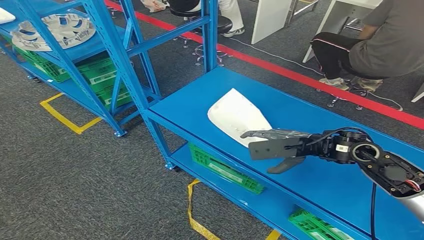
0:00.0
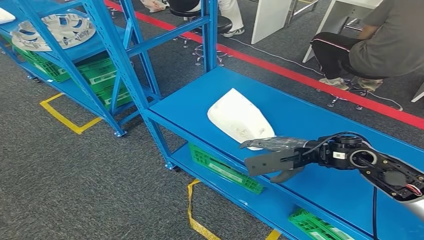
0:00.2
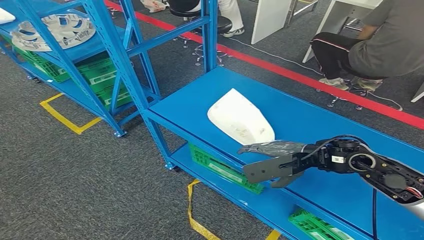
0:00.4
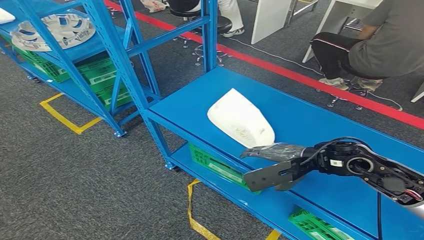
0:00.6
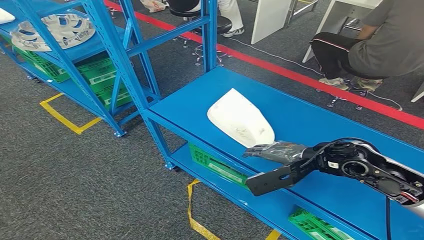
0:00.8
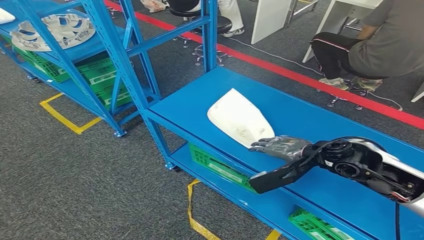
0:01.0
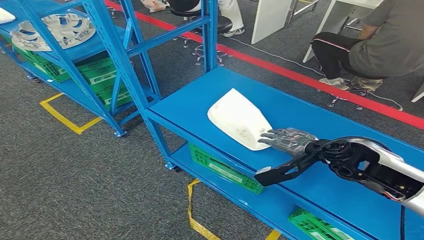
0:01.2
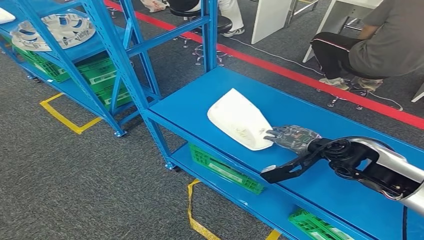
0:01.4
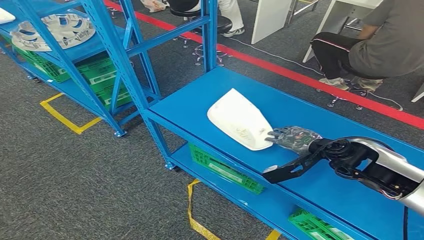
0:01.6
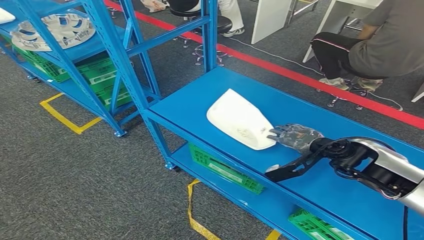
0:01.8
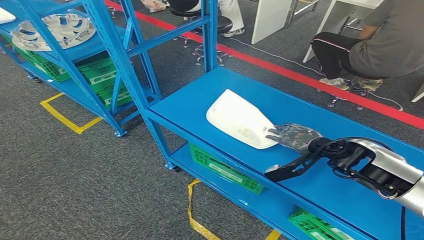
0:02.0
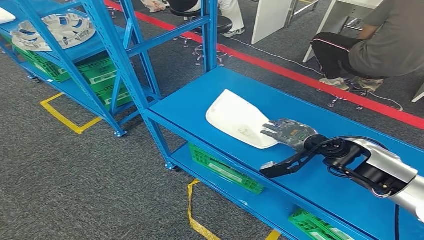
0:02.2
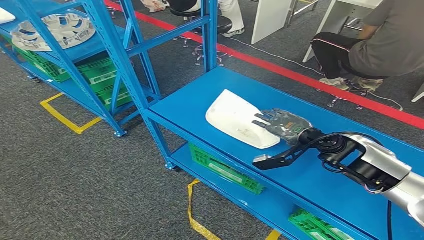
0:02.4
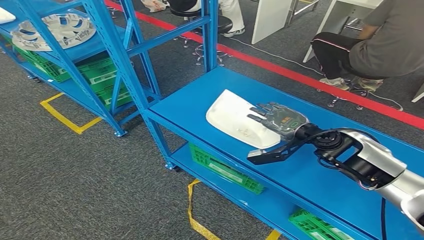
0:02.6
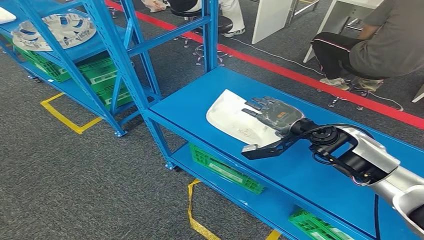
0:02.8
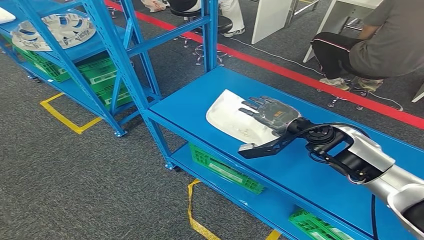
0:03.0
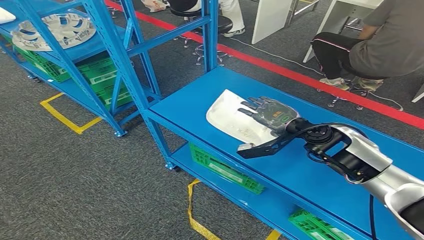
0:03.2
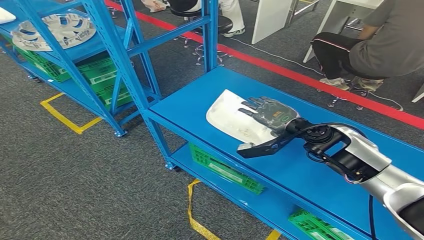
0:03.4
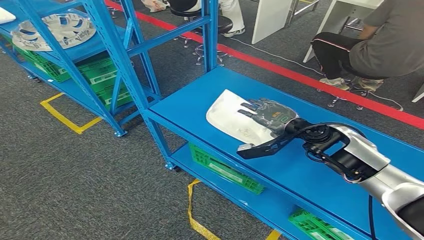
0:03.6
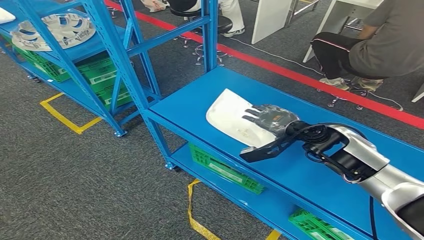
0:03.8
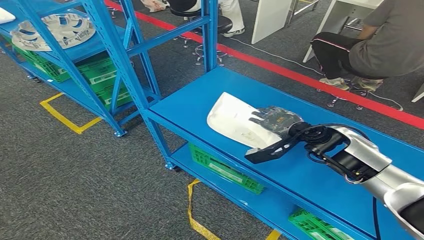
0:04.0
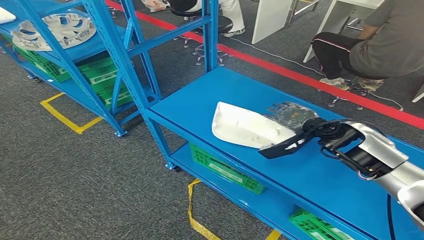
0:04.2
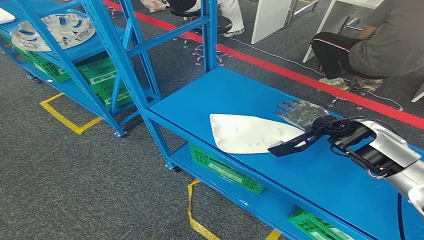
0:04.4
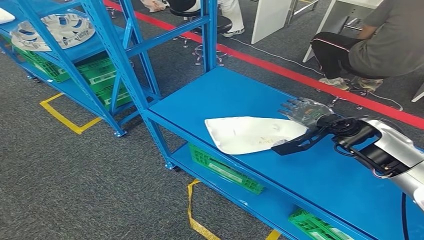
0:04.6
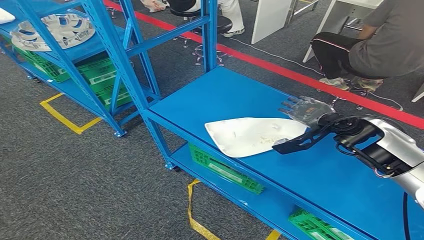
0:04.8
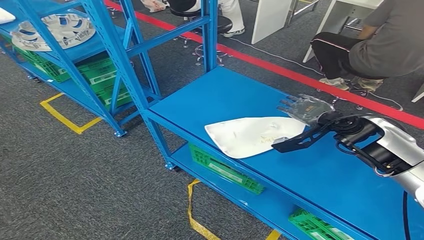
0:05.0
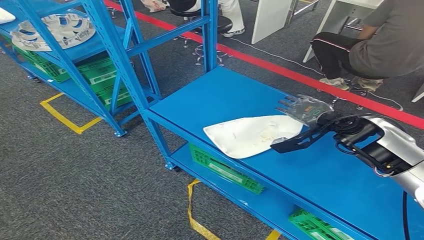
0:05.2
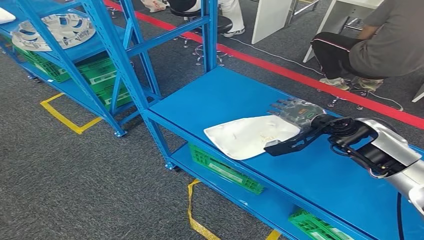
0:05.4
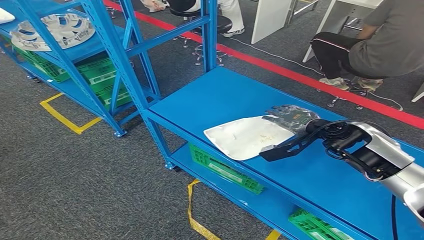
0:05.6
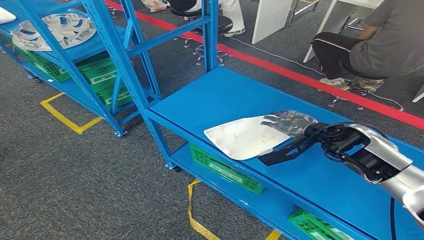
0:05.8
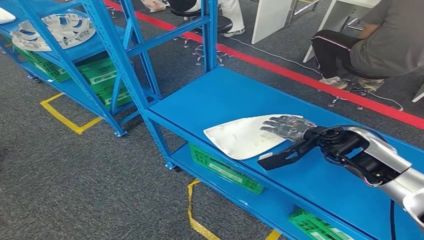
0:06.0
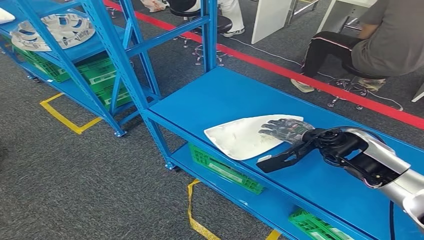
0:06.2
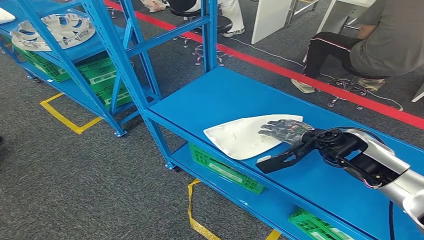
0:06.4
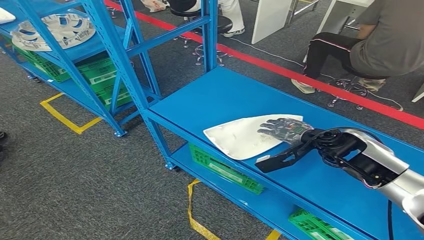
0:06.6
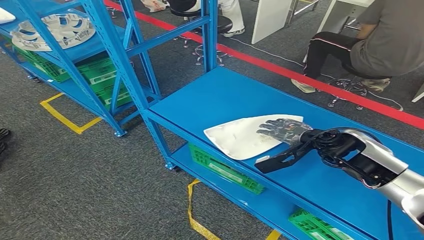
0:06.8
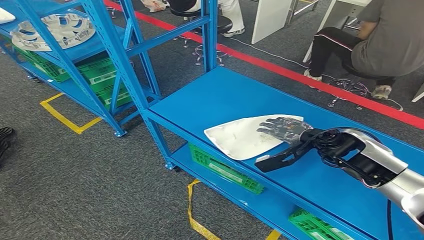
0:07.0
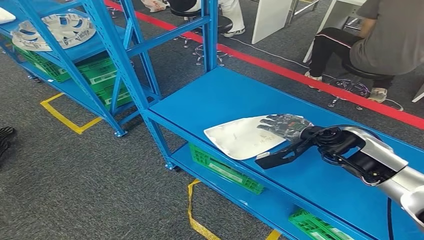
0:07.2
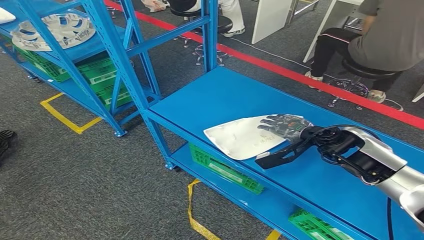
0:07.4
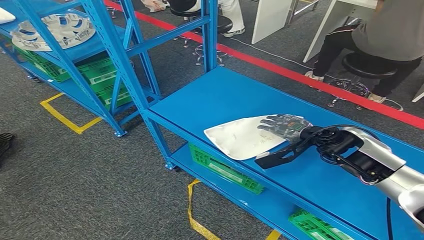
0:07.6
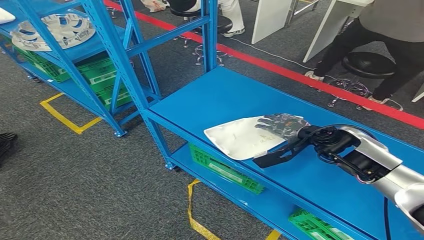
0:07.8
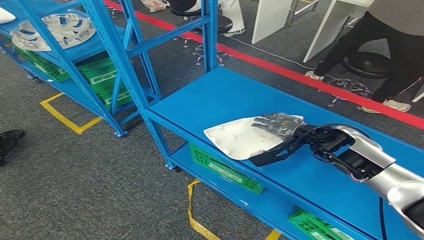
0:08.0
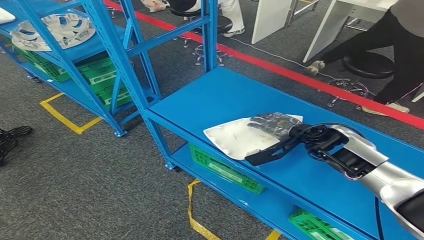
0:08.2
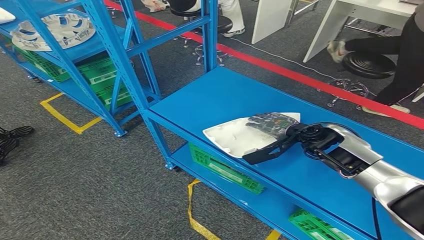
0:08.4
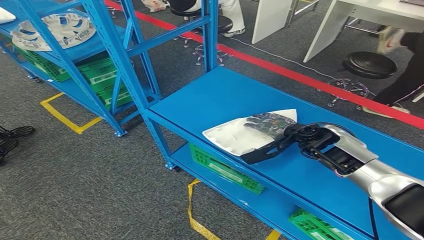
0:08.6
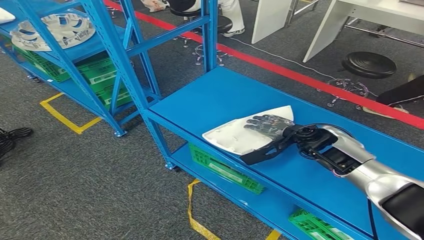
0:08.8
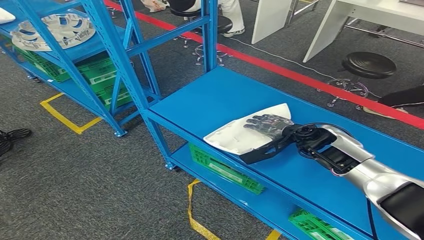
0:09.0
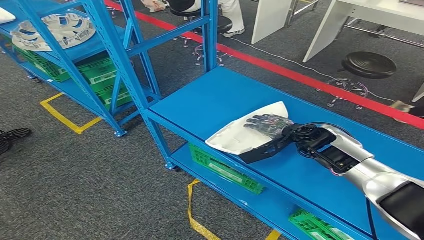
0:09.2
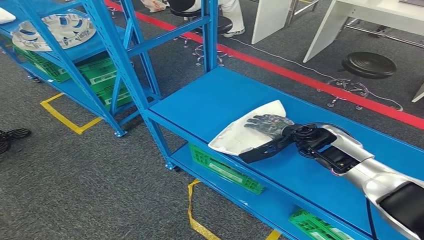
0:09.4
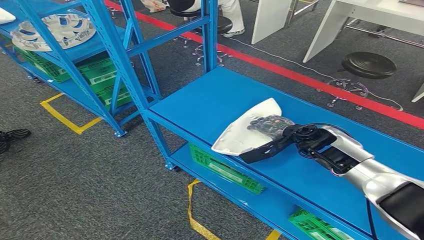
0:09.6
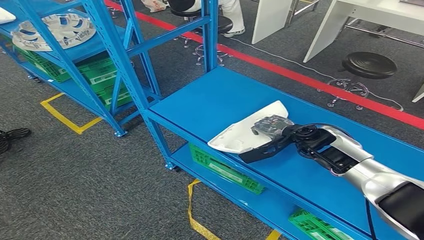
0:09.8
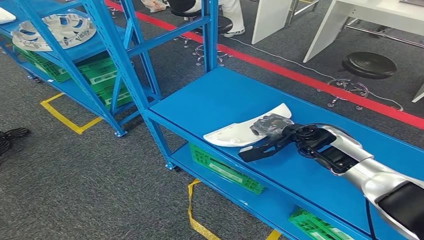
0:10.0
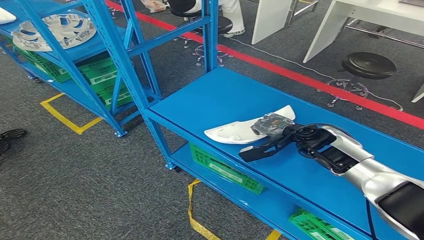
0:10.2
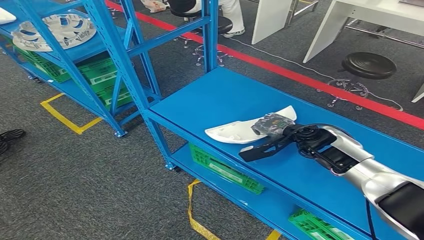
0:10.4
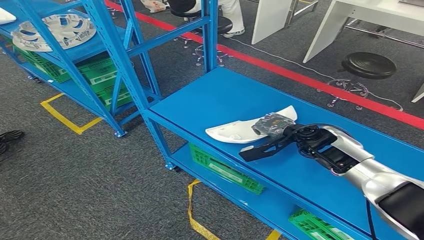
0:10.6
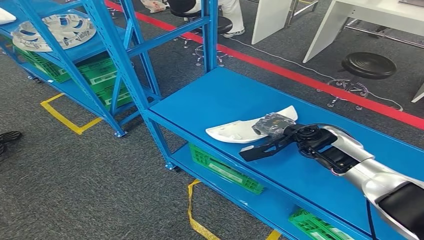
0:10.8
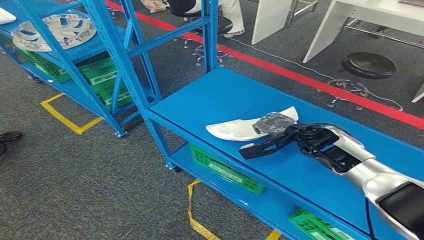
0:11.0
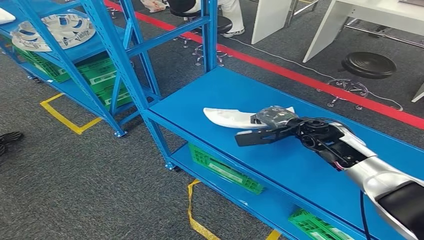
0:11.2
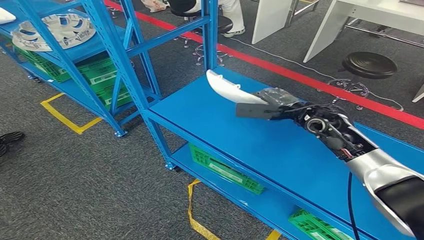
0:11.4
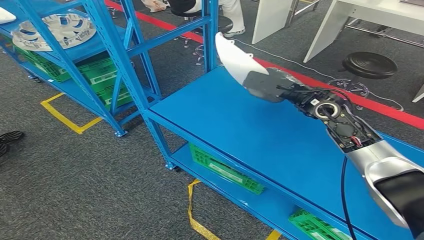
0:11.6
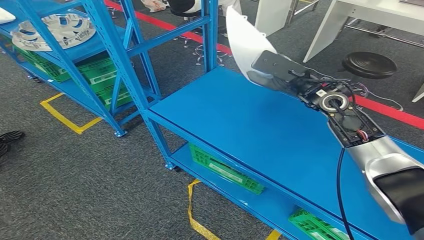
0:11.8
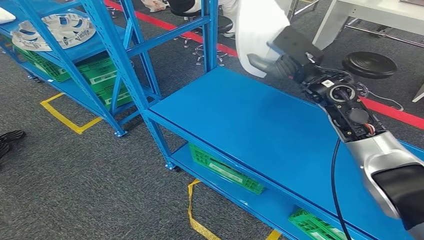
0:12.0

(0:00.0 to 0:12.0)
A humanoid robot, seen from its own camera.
0:00.0 - 0:01.6: The right hand shifts roughly 5 cm downward.
0:01.6 - 0:03.0: The right hand changes place by some 5 cm.
0:03.0 - 0:04.4: The right hand shifts roughly 5 cm to the right.
0:04.4 - 0:06.0: There are only small adjustments of the hands.
0:06.0 - 0:07.6: Both hands stay put.
0:07.6 - 0:09.0: The hands make only small movements.
0:09.0 - 0:10.4: Neither hand changes place.
0:10.4 - 0:12.0: The right hand moves upward, roughly 20 cm.

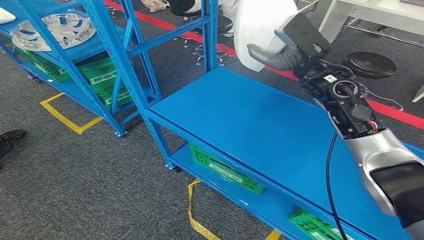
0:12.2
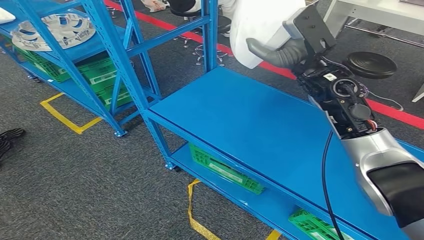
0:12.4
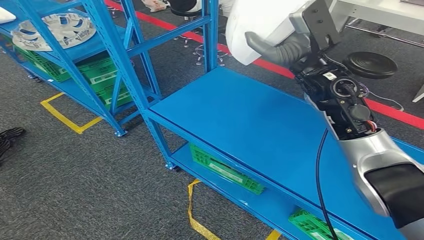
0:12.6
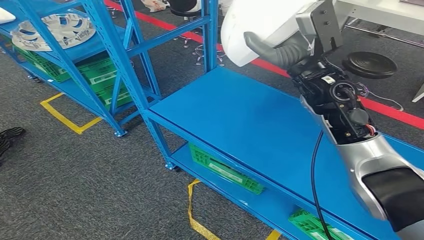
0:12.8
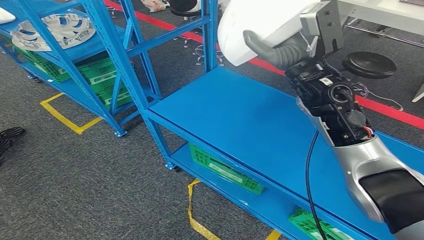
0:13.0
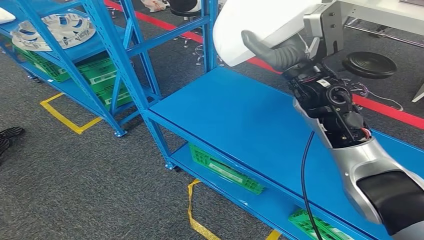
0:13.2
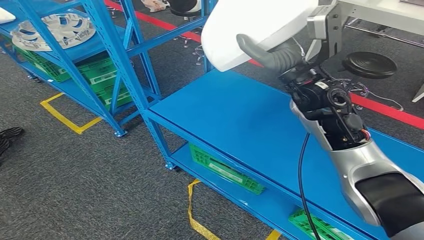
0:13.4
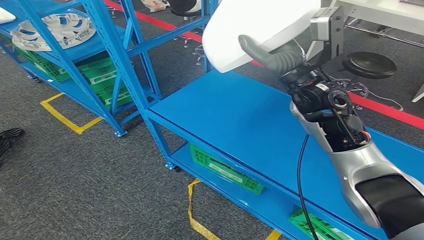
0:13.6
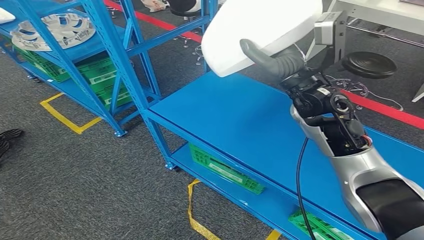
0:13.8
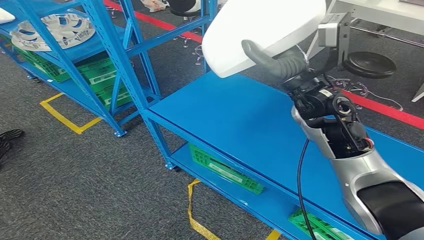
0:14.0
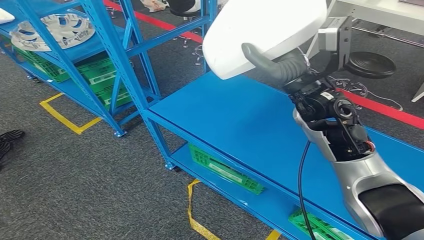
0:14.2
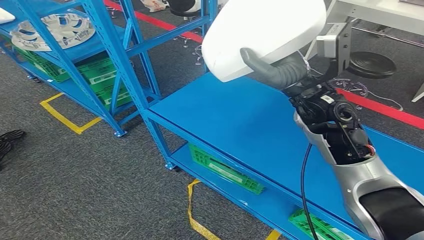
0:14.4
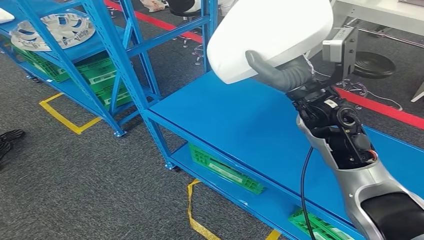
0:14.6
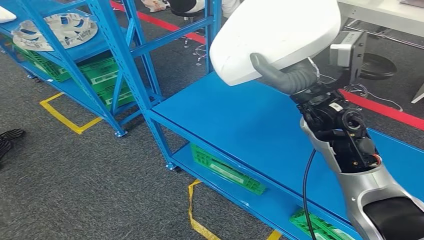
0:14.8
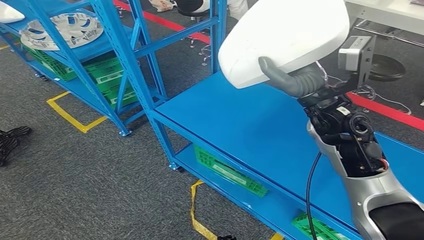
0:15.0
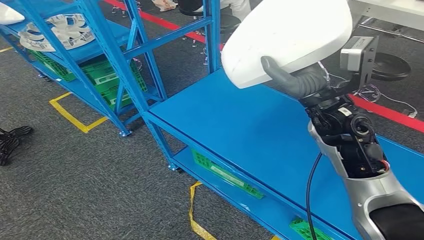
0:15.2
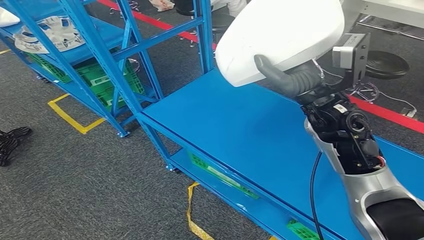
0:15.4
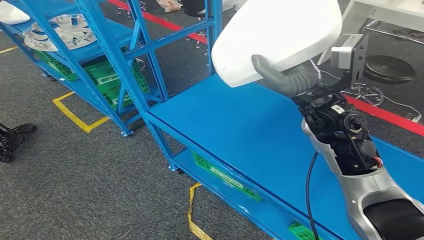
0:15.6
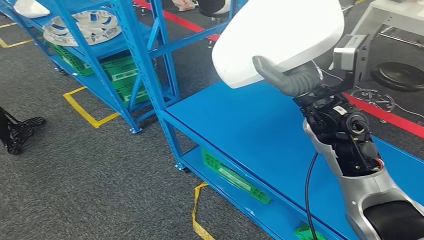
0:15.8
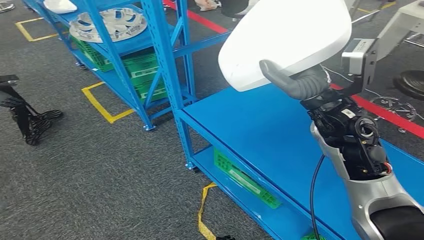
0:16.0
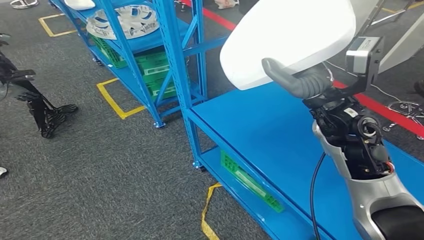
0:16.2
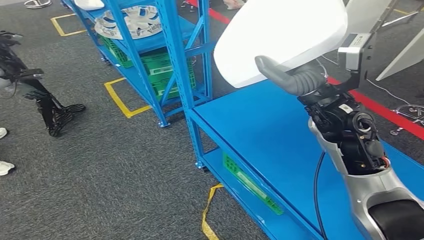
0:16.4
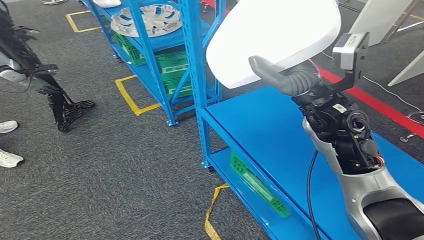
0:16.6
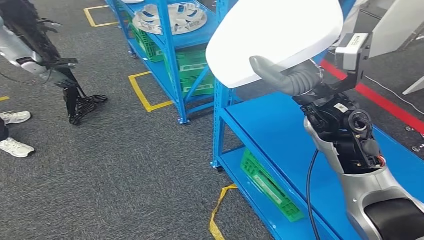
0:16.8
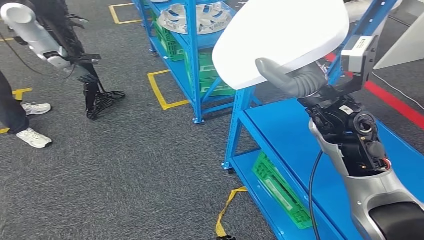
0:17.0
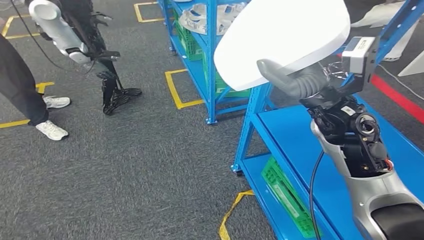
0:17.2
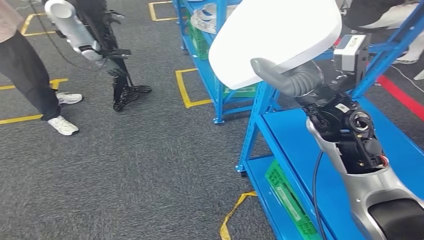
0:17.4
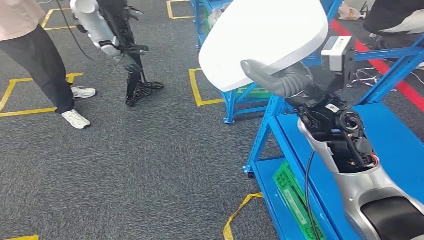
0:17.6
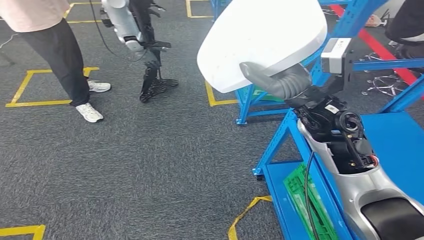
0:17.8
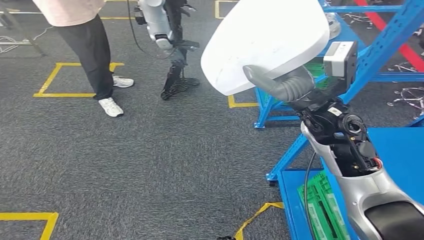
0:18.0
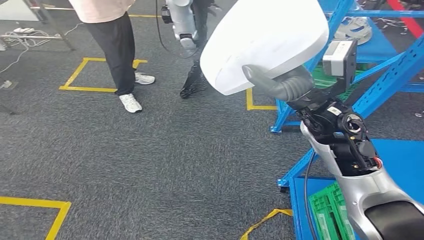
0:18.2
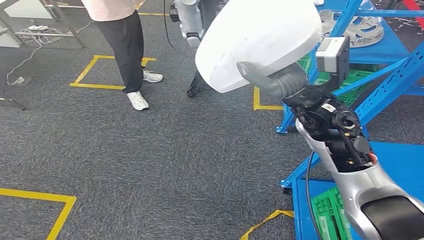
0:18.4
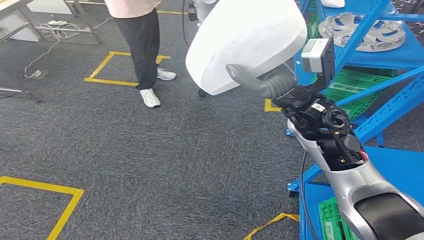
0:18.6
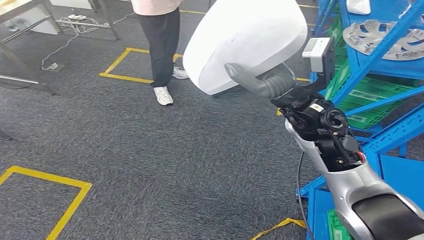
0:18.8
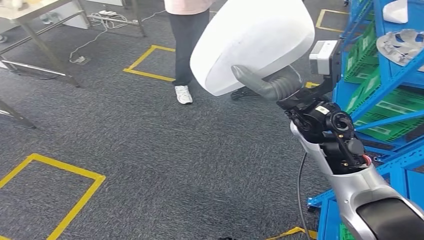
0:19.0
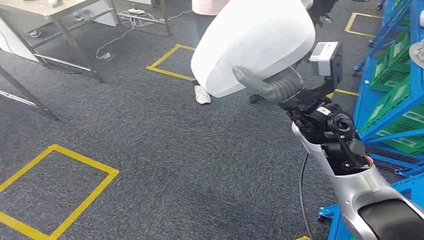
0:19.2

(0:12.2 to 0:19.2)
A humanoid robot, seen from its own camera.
0:12.2 - 0:13.6: The right hand shifts by roughly 5 cm.
